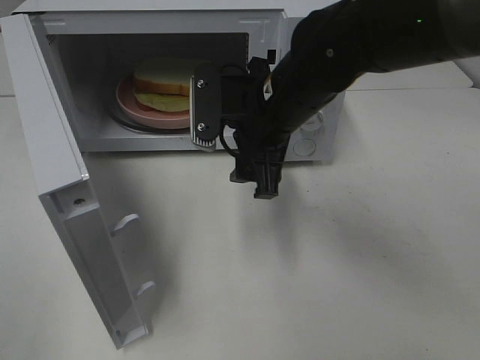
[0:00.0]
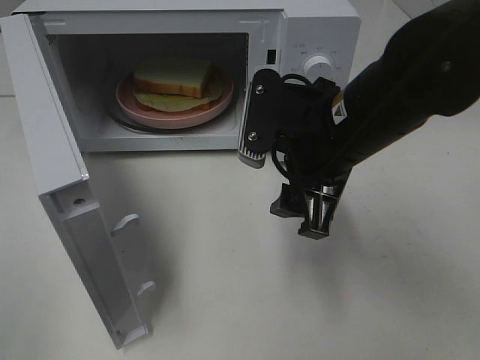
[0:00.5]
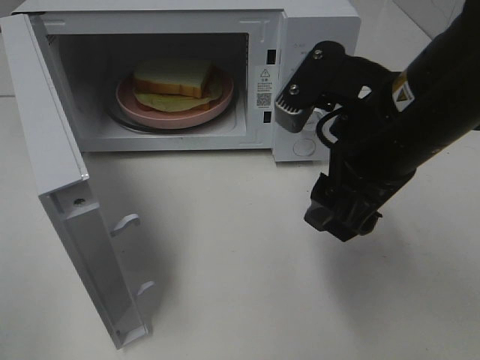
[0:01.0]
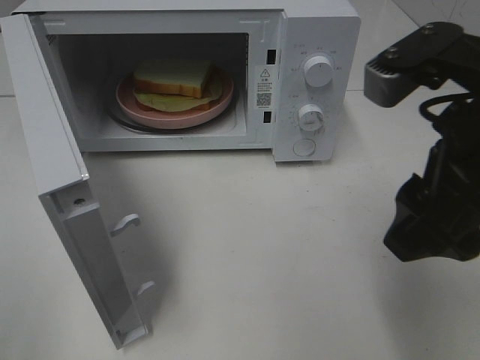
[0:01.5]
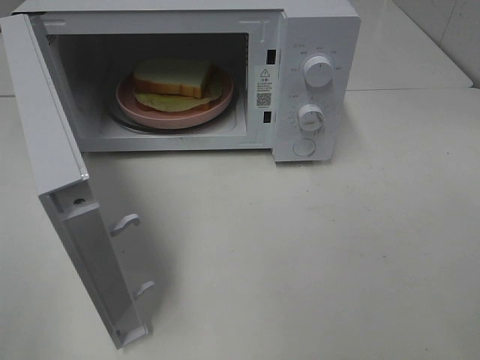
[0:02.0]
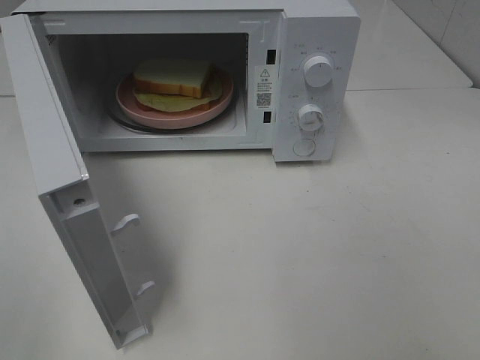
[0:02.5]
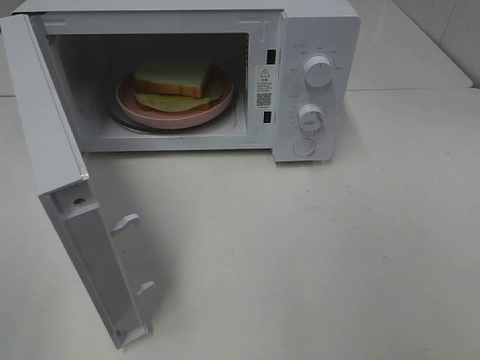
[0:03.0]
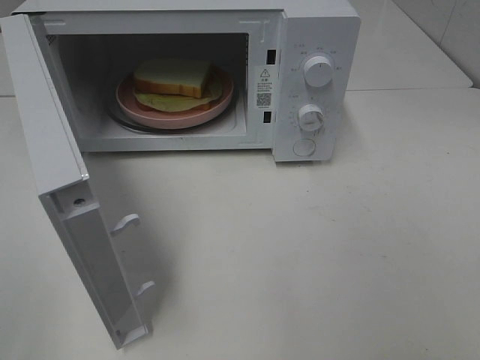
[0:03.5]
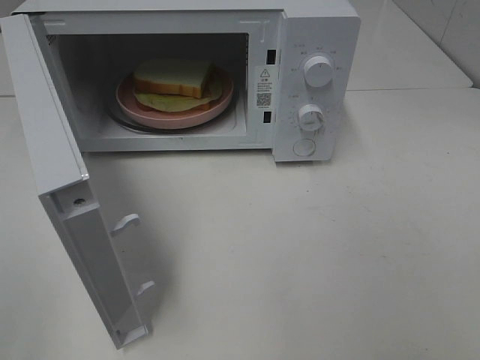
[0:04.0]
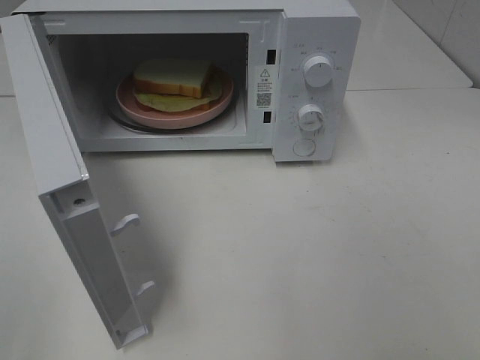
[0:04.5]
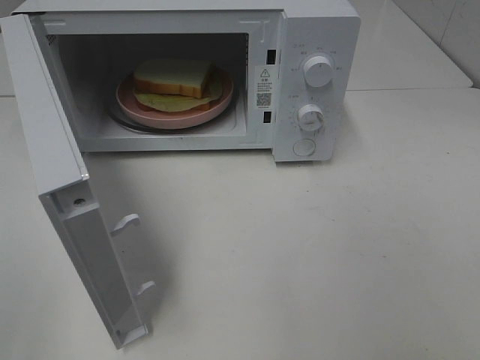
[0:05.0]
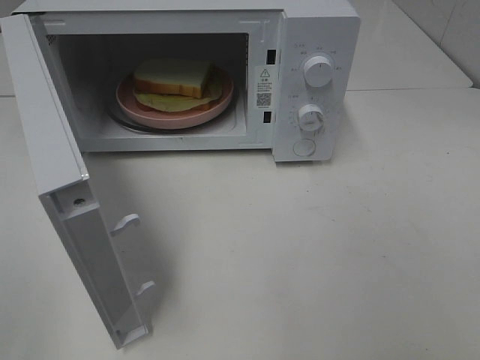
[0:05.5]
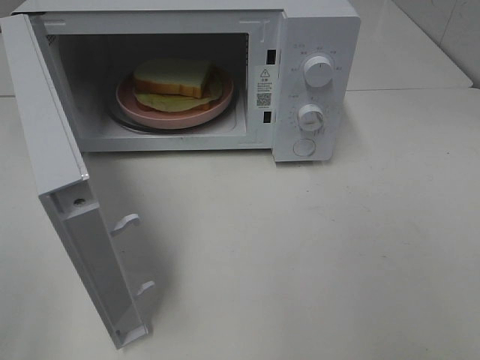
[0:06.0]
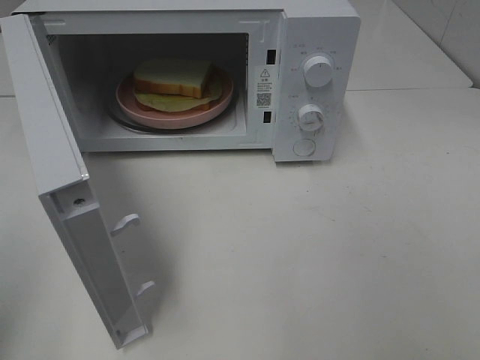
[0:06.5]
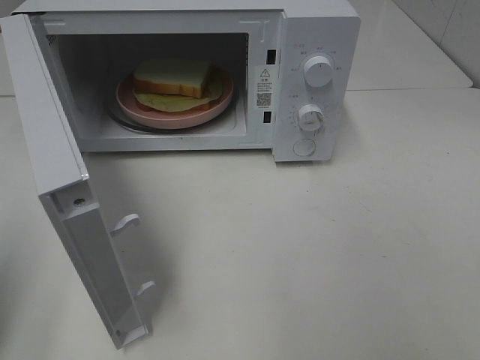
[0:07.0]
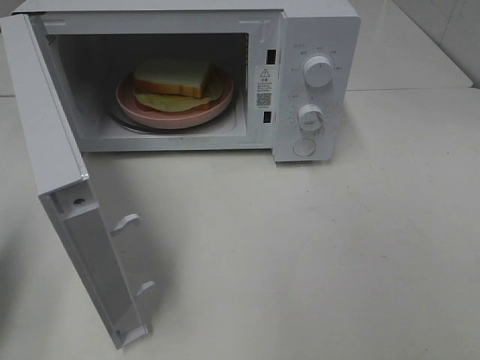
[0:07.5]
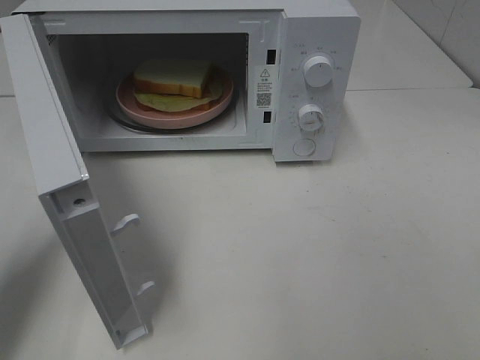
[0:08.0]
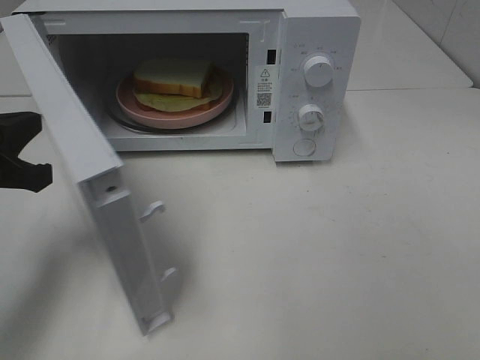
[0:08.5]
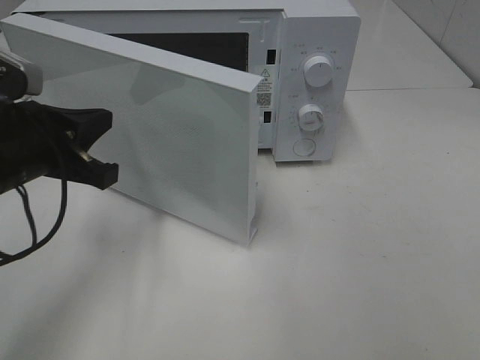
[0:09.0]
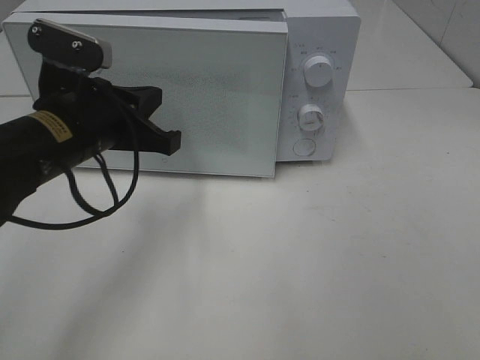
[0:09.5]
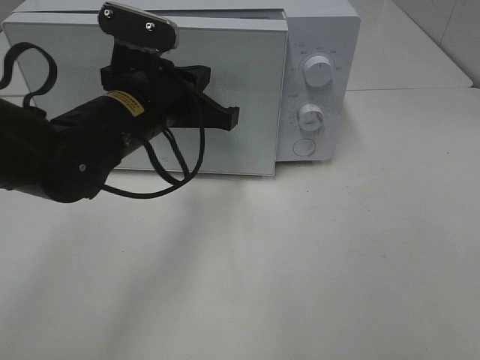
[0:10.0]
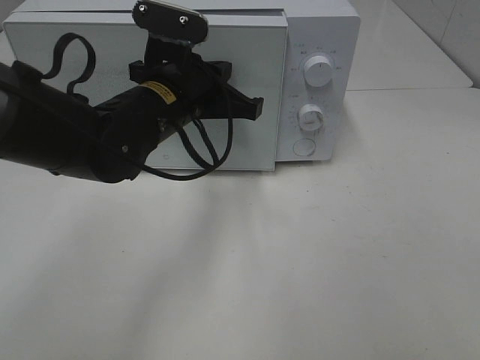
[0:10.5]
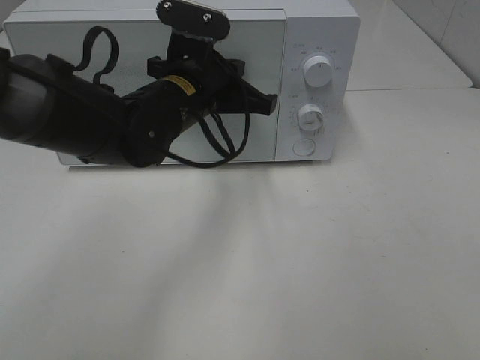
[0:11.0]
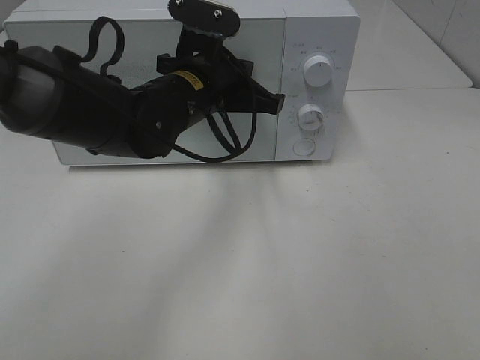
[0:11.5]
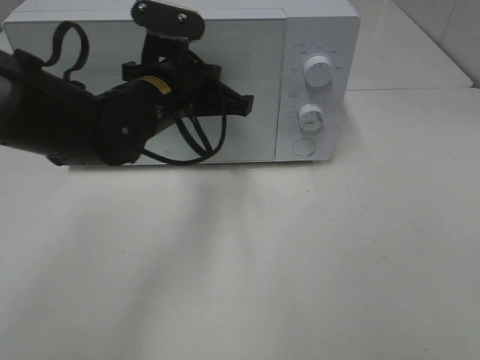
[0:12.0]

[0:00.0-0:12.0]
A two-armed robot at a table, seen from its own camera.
Task of the whole recording: Heat Sandwich.
Step, 0:00.0 to 0:11.0: Left hand: close the microwave door.
0:00.0 to 0:02.0: The right gripper moves backward, to the right and upward, roughly 35 cm.
0:06.0 to 0:08.0: The left gripper is displaced forward and downward by some 20 cm, and closes.
0:08.0 to 0:10.0: The left gripper travels to the right and forward by about 25 cm.

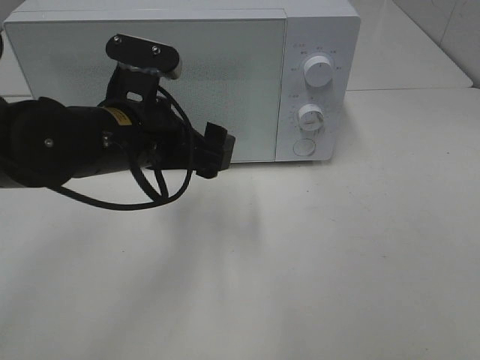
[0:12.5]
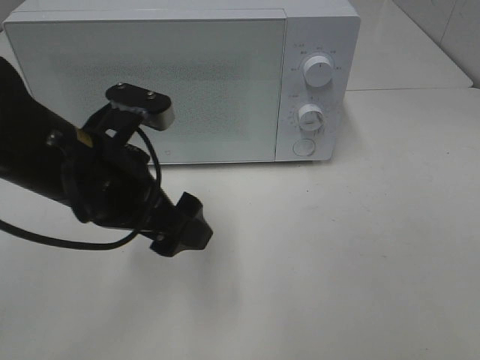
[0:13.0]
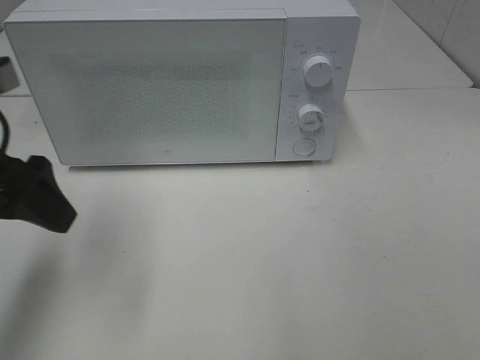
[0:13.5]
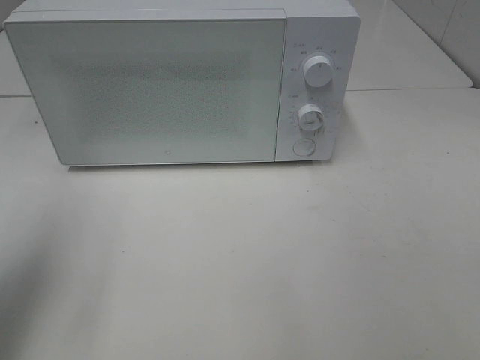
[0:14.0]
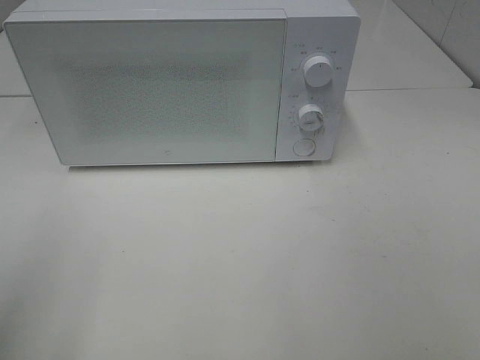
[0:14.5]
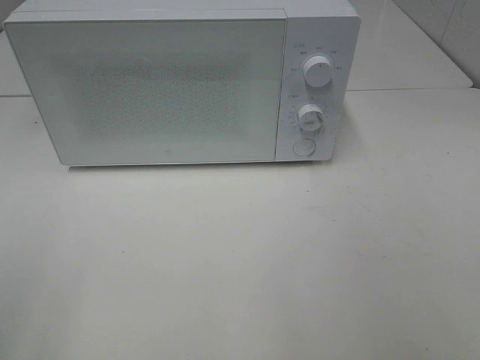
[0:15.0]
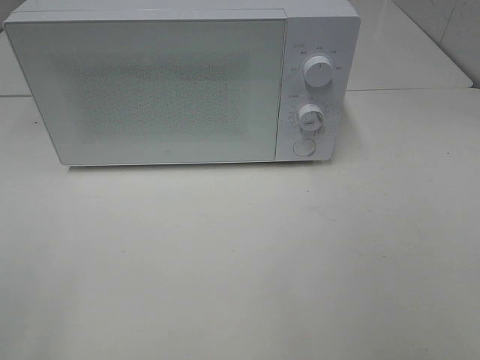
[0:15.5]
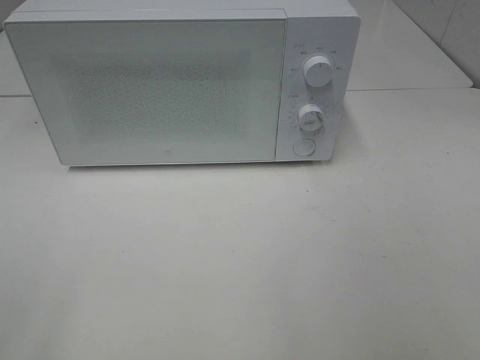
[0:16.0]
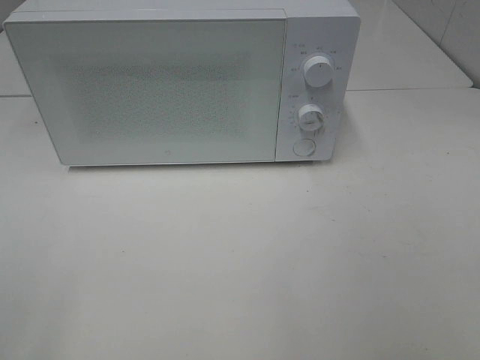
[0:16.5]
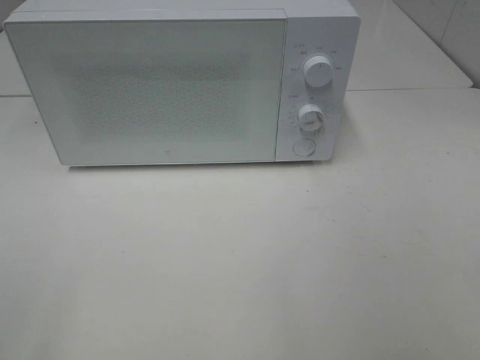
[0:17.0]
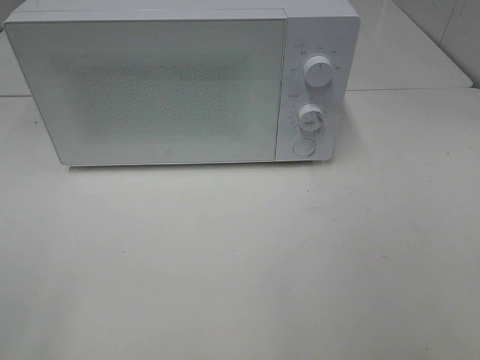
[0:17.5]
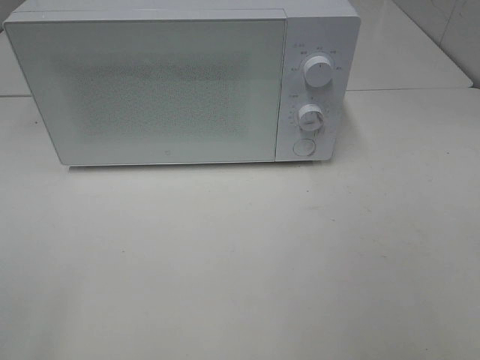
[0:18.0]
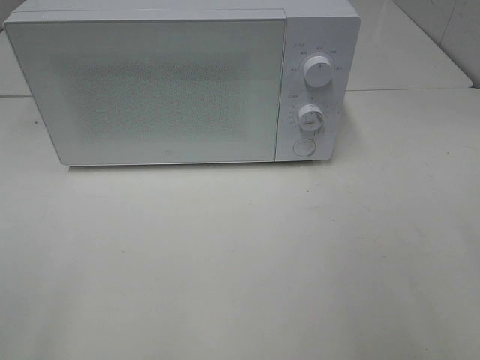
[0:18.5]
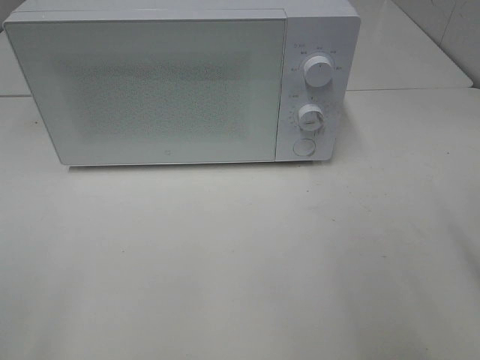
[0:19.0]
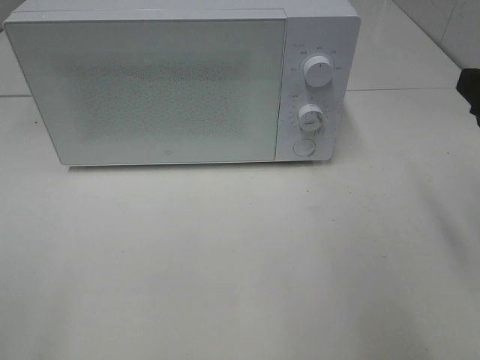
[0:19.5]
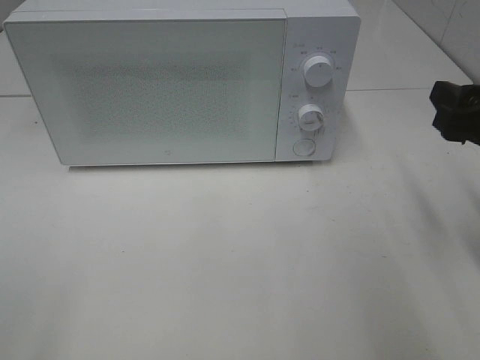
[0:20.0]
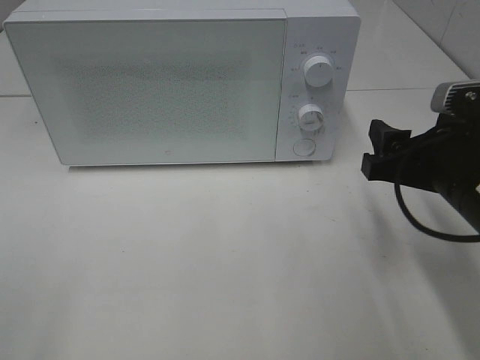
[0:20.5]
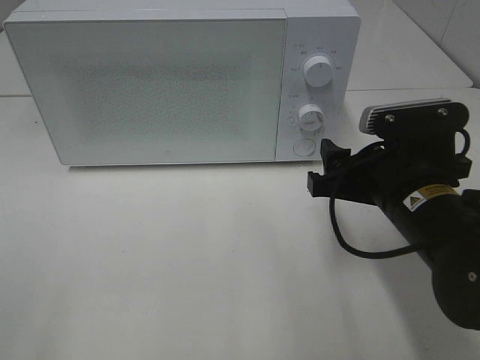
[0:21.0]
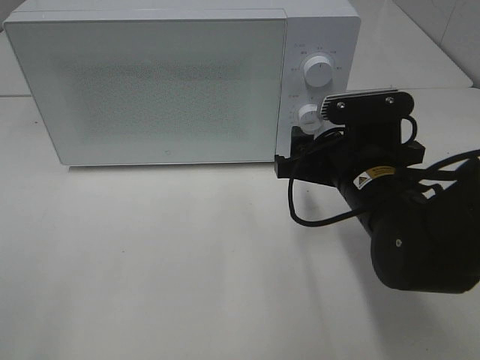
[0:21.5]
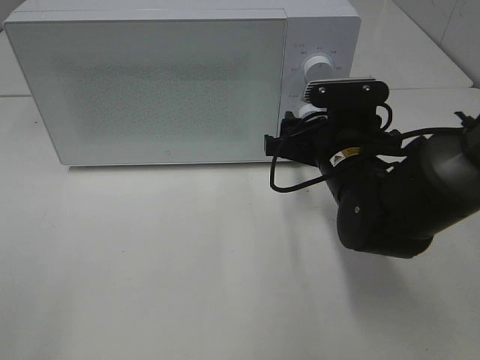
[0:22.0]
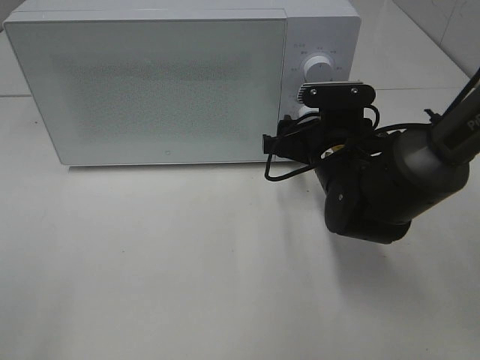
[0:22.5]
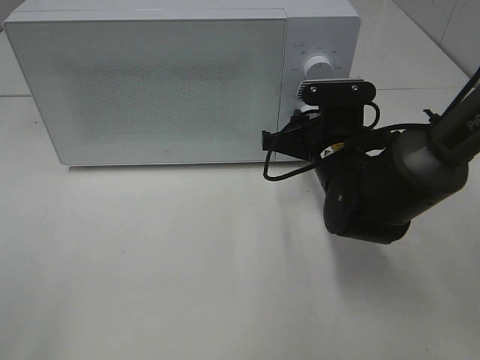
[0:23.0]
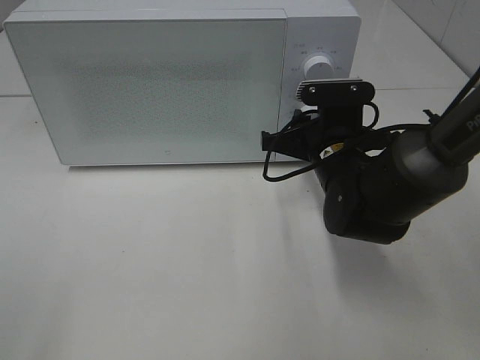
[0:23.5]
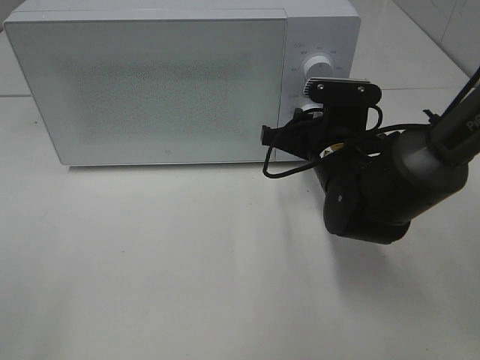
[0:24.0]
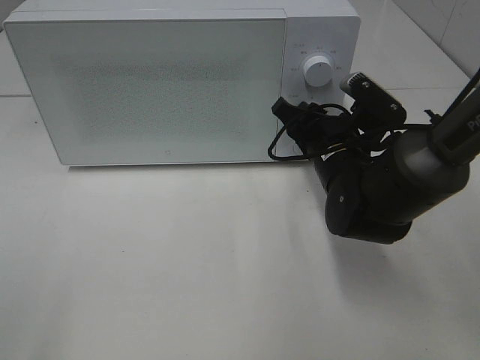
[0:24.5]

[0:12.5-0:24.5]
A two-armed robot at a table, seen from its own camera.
Task of the whole recording: Heat Sandwich.
0:12.5 to 0:14.5: The left gripper moves to the left, backward and upward, approximately 30 cm.
0:18.5 to 0:20.5: The right gripper goes approximately 20 cm forward, downward and to the left.
0:20.5 to 0:22.5: The right gripper is displaced forward, to the left and downward by about 15 cm.
0:22.5 to 0:24.5: The right gripper closes its fingers.

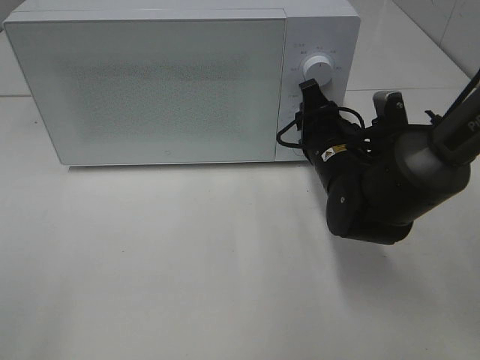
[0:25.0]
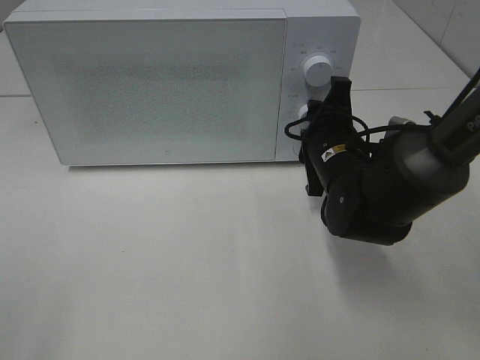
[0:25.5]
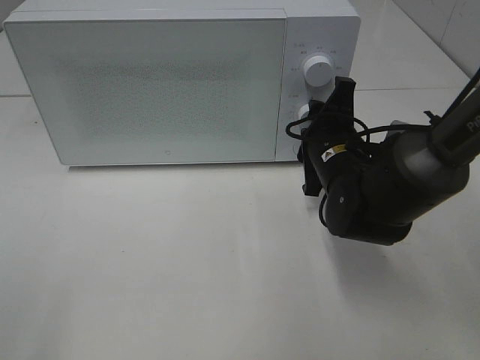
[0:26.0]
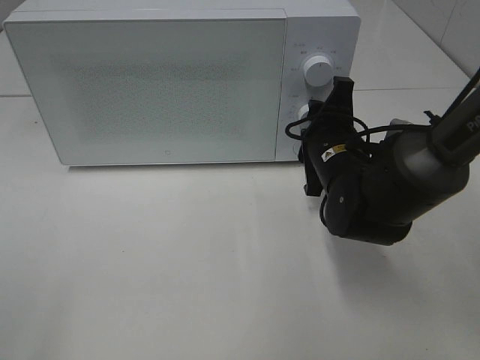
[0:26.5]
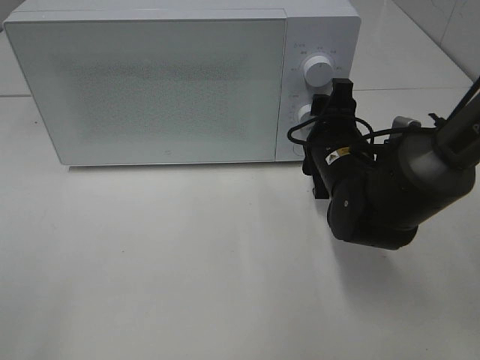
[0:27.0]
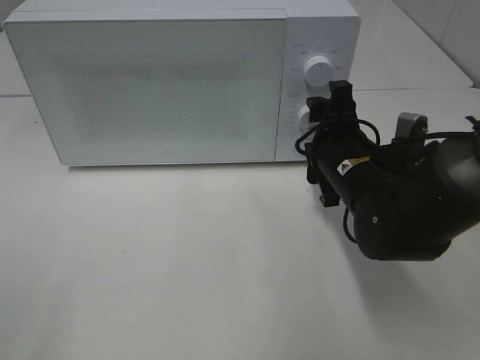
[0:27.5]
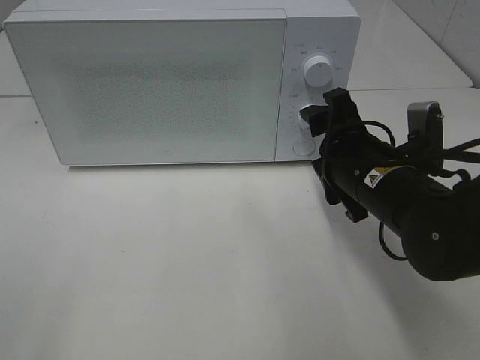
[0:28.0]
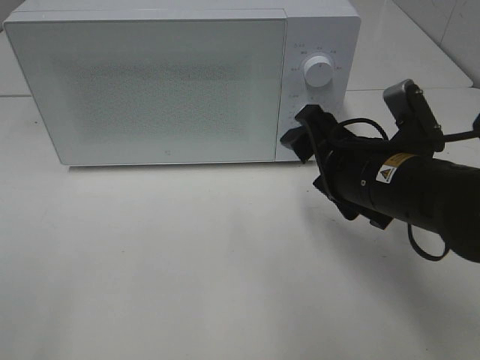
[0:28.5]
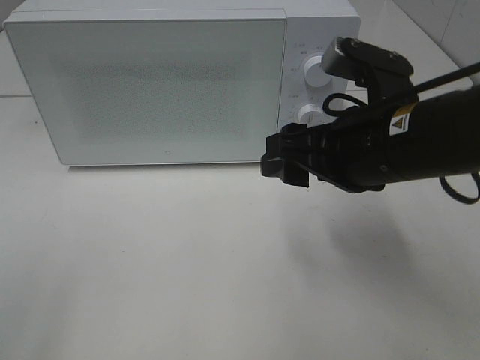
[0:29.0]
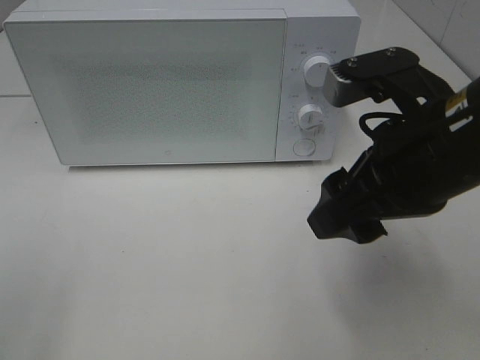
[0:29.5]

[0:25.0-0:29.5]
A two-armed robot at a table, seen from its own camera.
Task of the whole recording: Heat Sandwich.
Step, 0:25.0 to 0:27.5: Right hand: twist timer button.
0:27.0 to 0:29.5: The right gripper is displaced upward and backward by roughly 20 cm.
